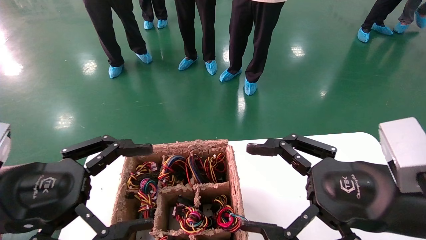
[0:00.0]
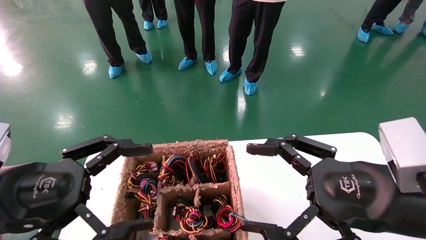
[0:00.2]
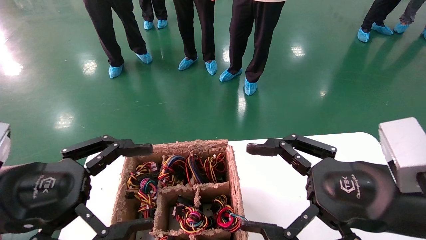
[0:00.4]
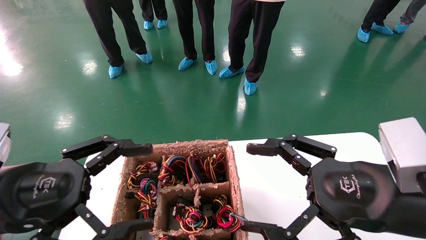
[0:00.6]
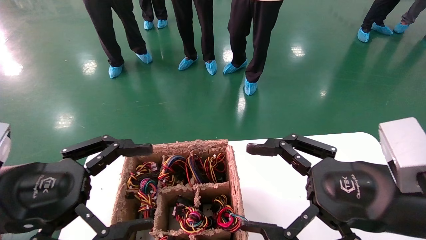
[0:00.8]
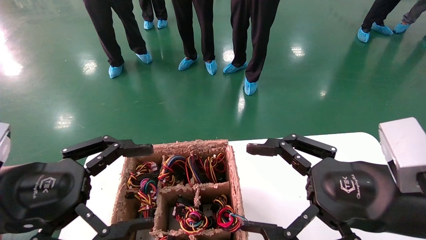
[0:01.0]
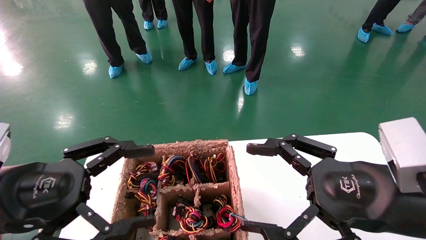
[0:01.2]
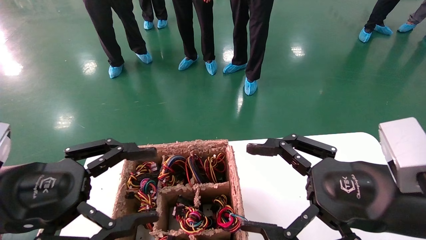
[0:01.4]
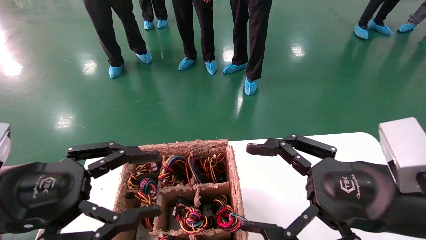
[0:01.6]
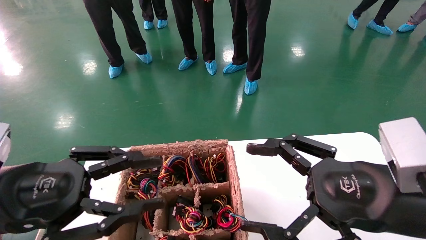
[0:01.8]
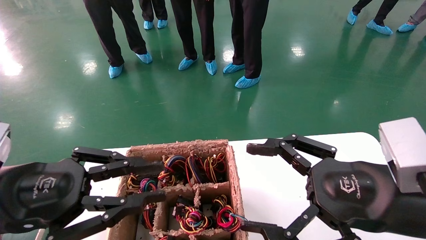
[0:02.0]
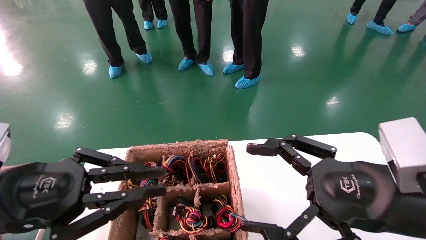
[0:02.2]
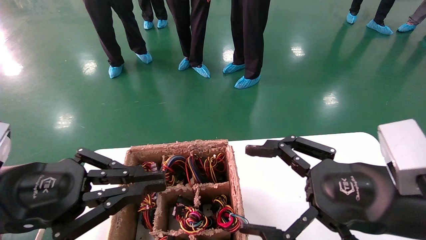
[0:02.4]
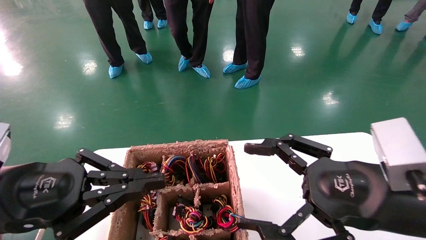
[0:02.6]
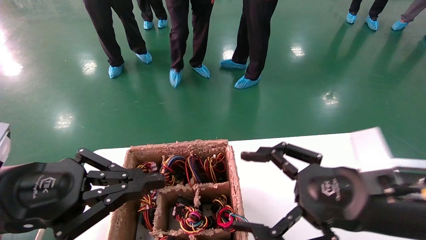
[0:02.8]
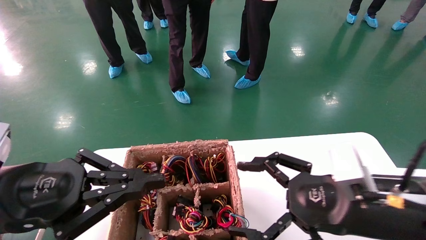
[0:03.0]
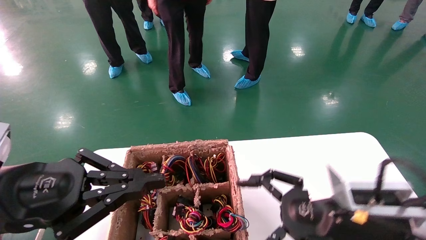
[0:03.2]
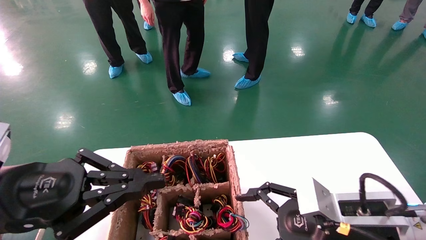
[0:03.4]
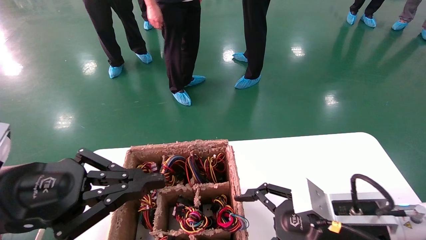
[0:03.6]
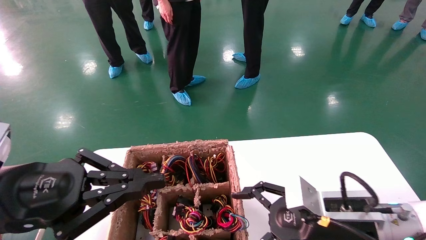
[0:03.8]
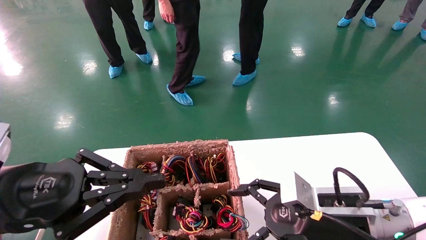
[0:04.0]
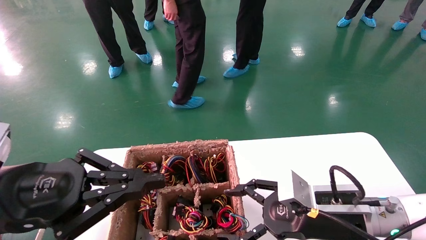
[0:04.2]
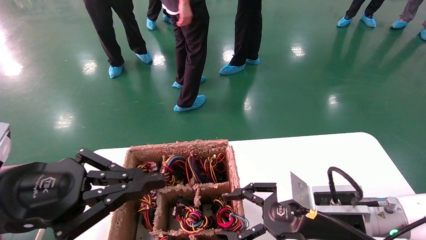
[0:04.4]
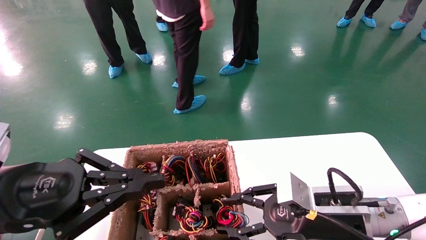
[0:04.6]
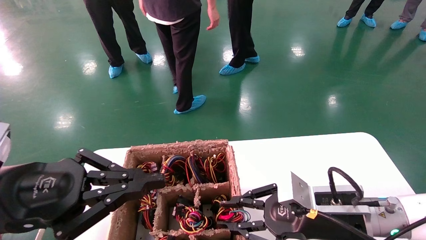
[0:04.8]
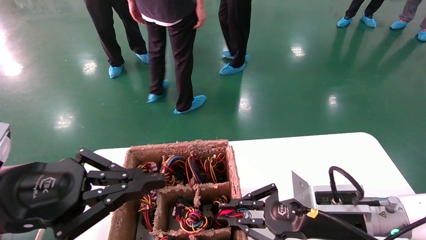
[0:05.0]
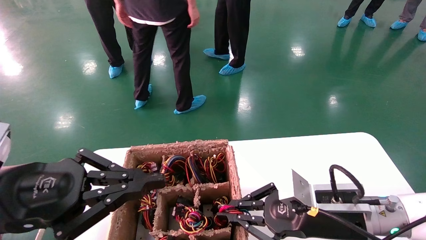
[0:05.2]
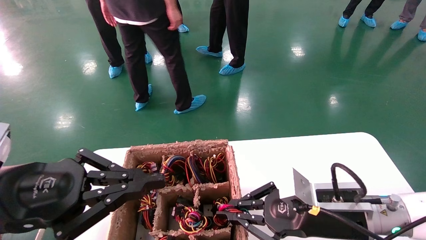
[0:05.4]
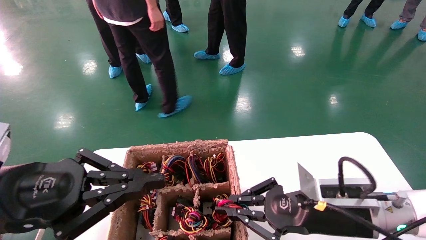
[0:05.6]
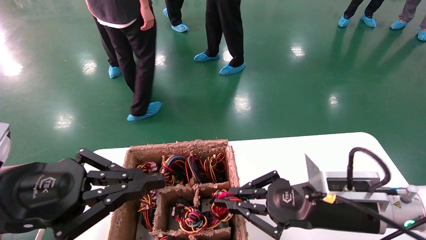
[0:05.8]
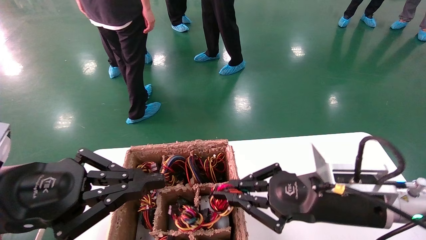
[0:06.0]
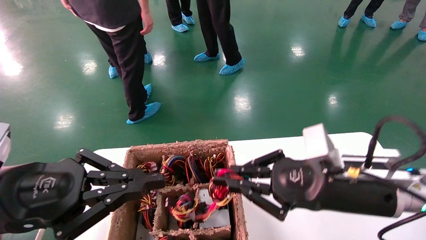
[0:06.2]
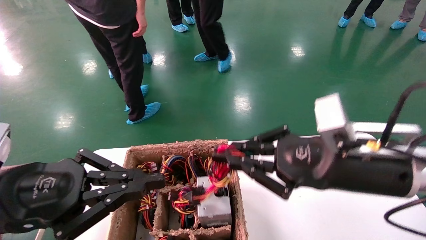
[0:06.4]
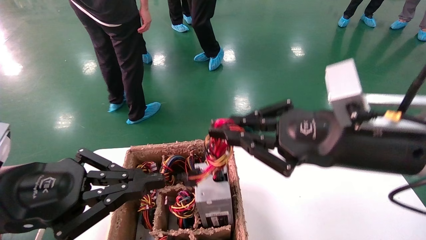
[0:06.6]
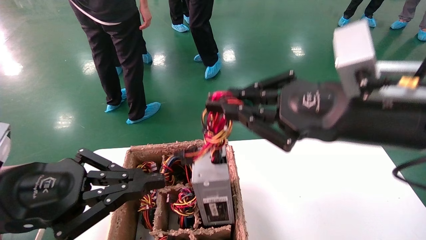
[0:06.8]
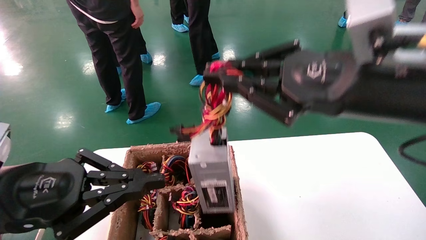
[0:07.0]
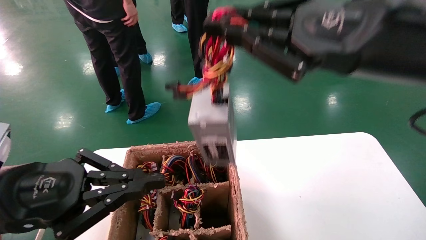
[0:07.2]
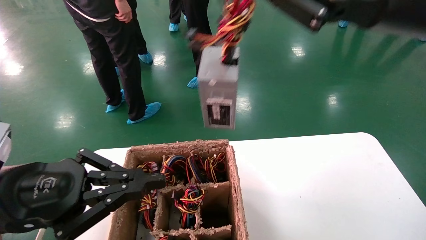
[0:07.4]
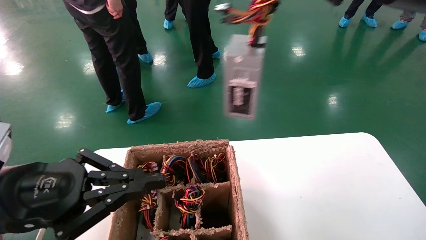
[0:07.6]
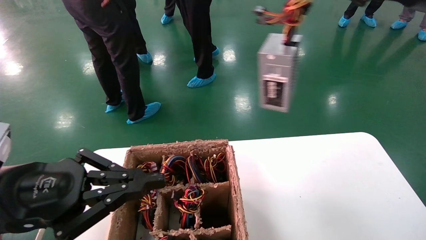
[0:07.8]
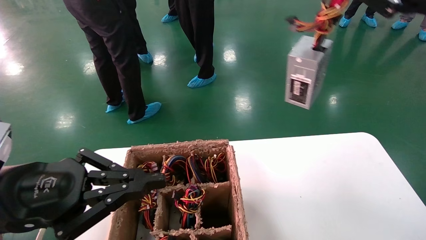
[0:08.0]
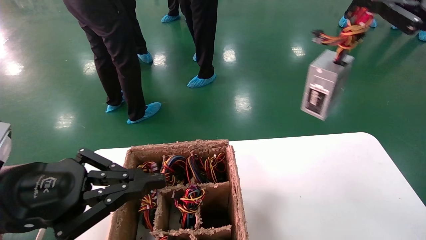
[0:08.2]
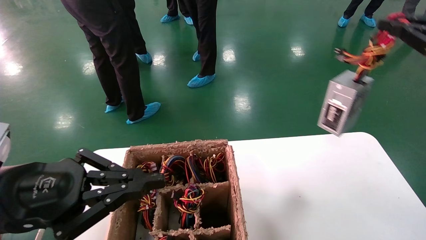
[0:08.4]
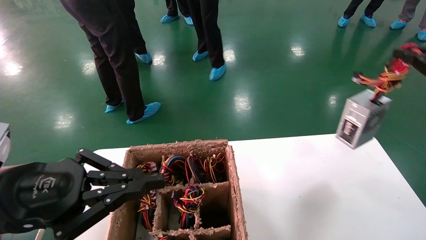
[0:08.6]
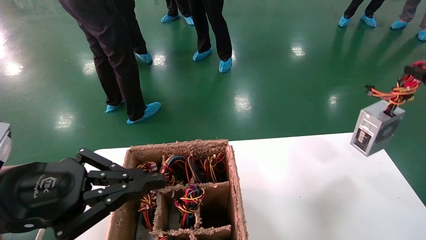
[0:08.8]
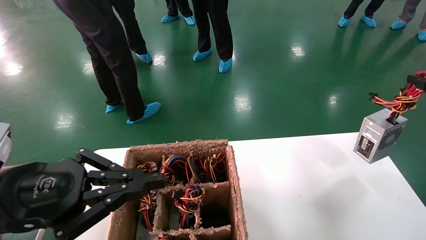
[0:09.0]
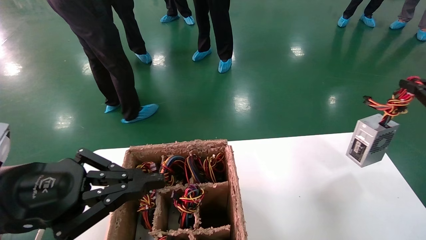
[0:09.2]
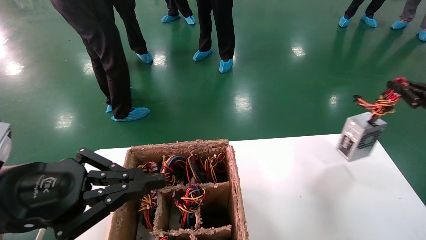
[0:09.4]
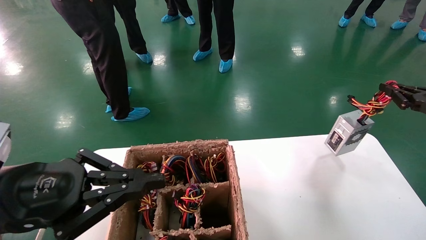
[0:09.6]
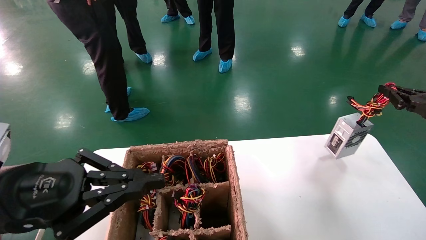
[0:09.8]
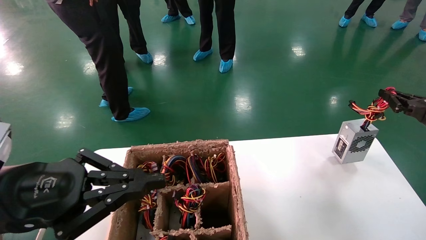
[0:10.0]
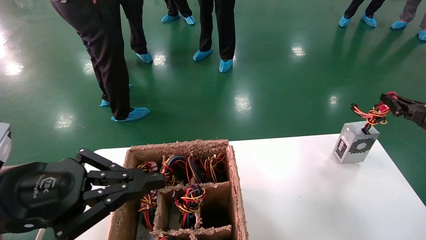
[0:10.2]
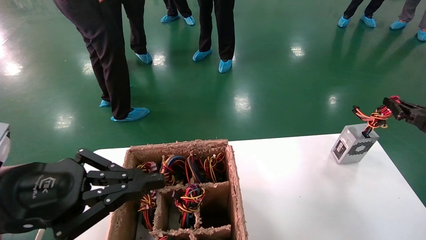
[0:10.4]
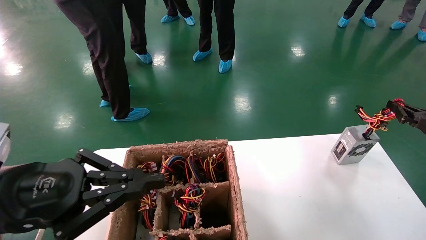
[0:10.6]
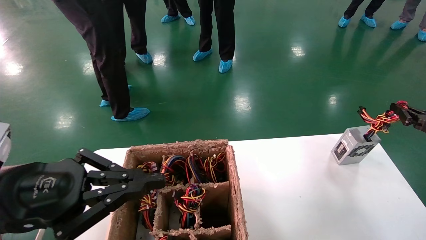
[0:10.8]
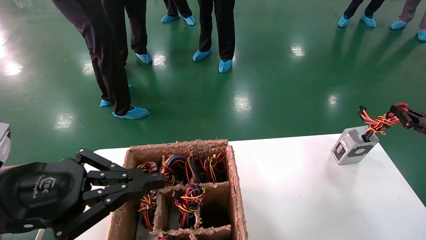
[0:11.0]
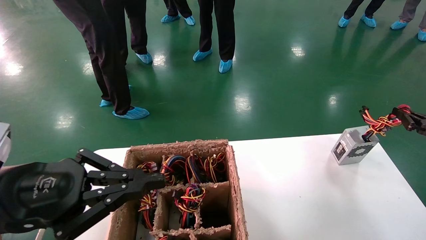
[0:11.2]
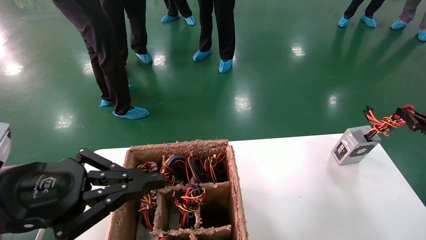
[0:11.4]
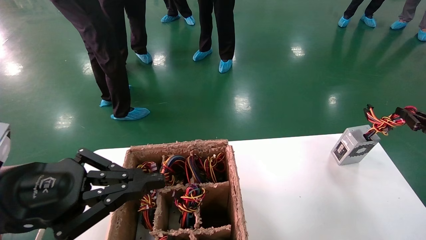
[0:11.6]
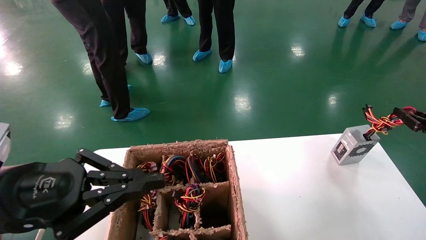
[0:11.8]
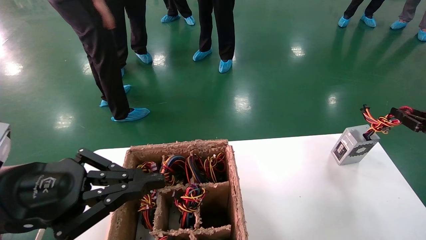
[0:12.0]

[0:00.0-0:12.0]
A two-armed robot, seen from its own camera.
Step, 0:02.8 to 0:05.2: Grab the main unit power supply from the containment box.
Step, 0:05.4 to 0:11.6: Place the main unit power supply in the designated area.
0:00.0 to 0:01.6: Both grippers stay about where they are.
0:01.6 to 0:03.0: The left gripper closes. The right gripper ends up roughly 5 cm from where it was.
0:03.0 to 0:04.4: The right gripper is displaced downward and forward by some 10 cm.
0:04.4 to 0:06.0: The right gripper goes some 5 cm upward, and closes.
0:06.0 to 0:07.6: The right gripper moves upward, roughly 25 cm.
0:07.6 to 0:09.0: The right gripper travels to the right and downward by some 30 cm.
0:09.0 to 0:10.4: The right gripper heads downward and forward, covering roughly 10 cm.
0:10.4 to 0:12.0: The grippers stay close to where they were, moving slightly.

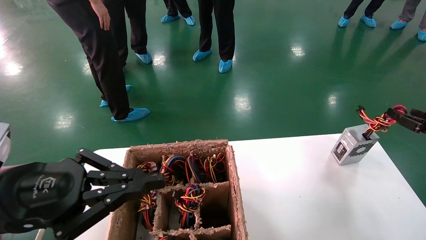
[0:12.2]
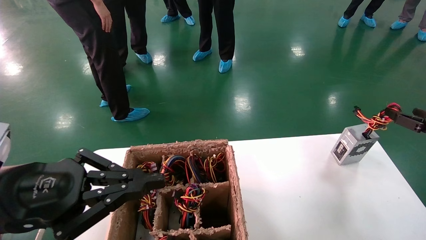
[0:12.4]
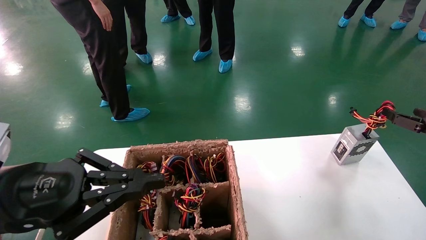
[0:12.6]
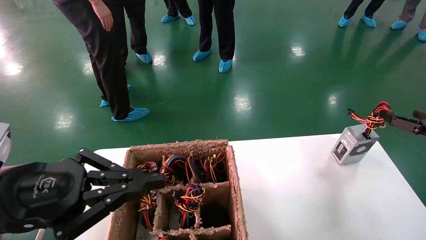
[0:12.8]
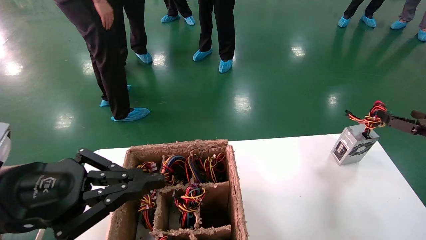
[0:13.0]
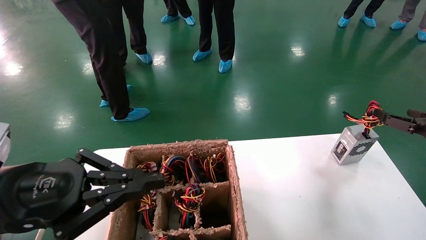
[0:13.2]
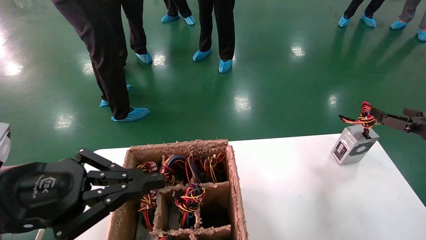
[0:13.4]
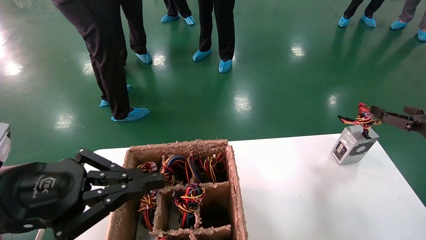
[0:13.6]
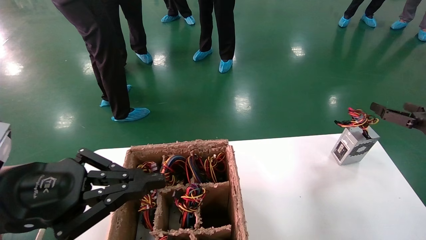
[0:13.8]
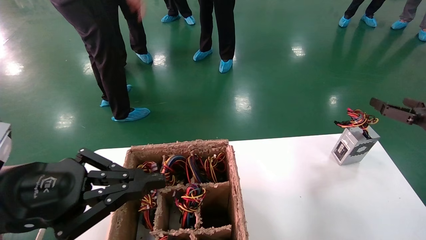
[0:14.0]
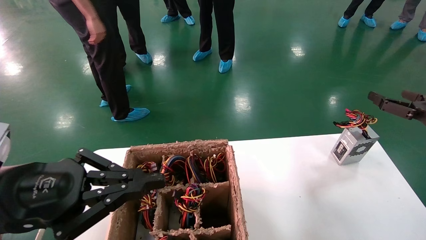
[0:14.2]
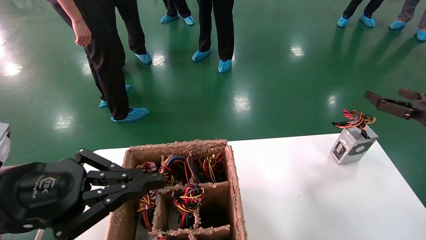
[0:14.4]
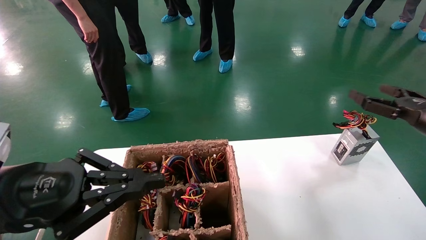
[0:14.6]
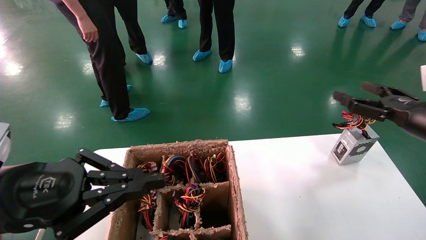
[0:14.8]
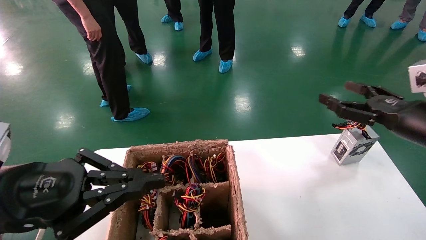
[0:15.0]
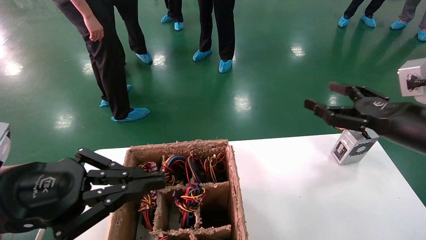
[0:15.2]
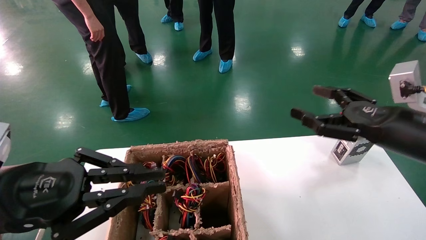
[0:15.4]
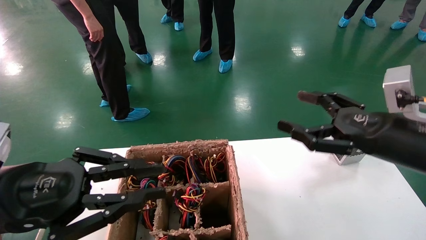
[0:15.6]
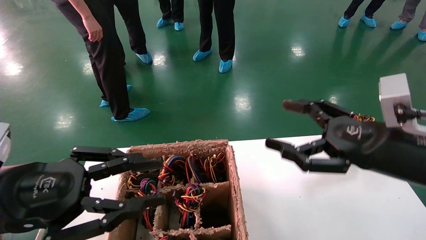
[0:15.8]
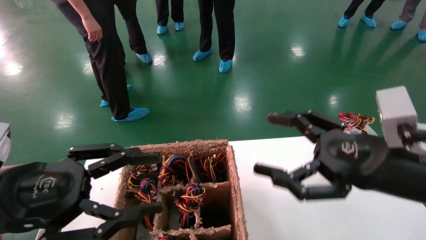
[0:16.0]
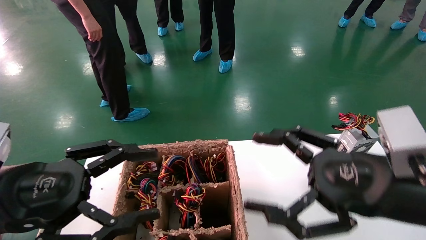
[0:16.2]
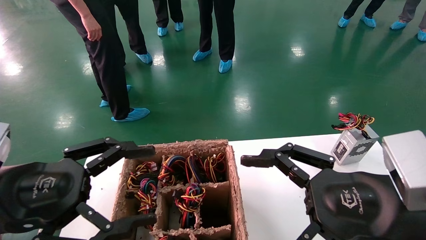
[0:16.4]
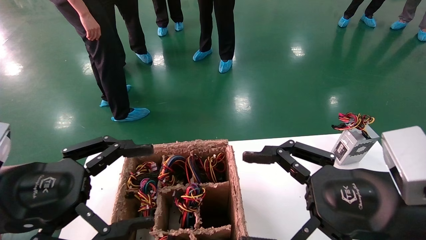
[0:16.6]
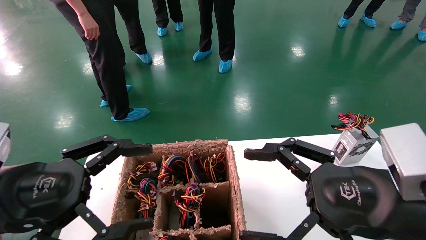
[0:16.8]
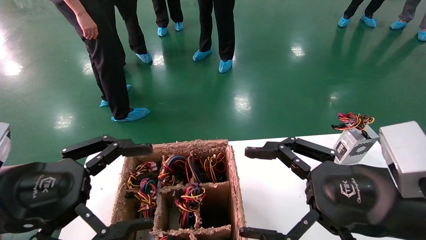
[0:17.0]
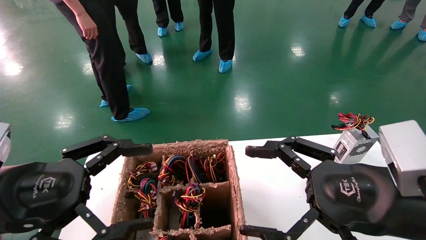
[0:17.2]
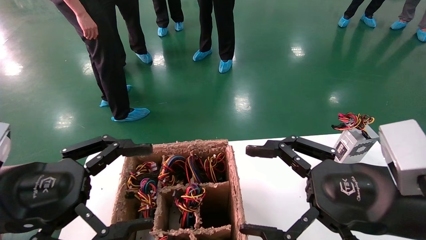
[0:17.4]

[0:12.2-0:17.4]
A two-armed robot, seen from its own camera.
0:12.2 to 0:14.0: The right gripper opens up.
0:14.0 to 0:15.6: The right gripper is displaced to the left and backward by roughly 20 cm.
0:15.6 to 0:17.4: The right gripper heads backward and to the left, covering some 10 cm; the left gripper opens up.
